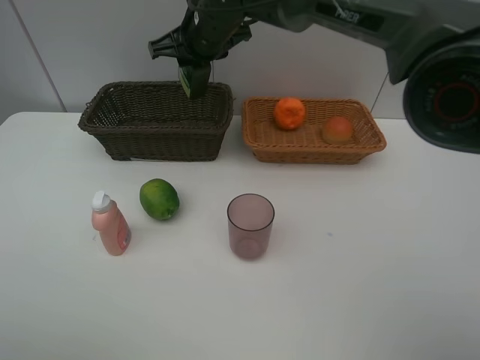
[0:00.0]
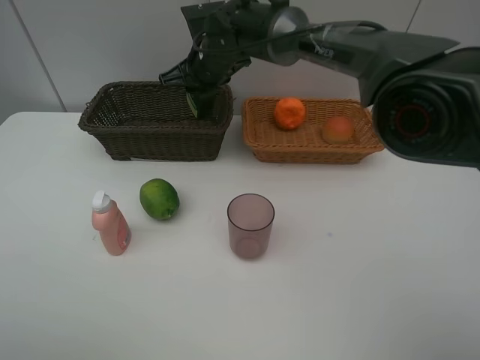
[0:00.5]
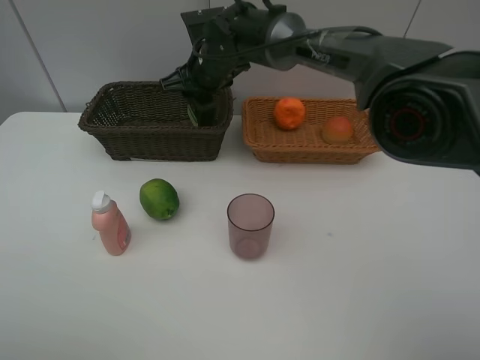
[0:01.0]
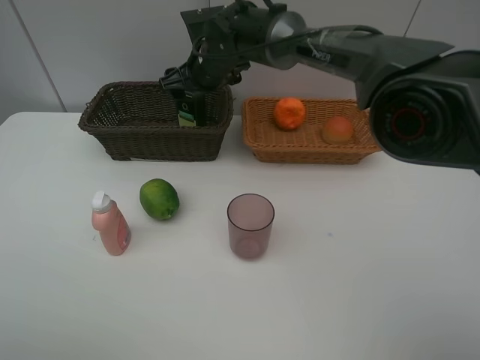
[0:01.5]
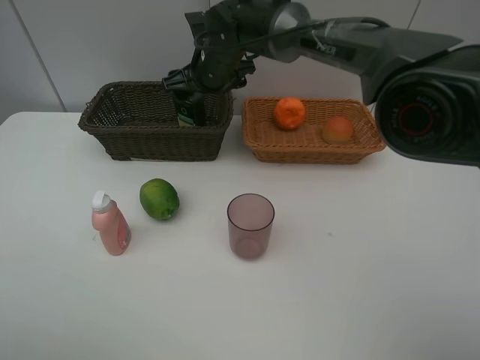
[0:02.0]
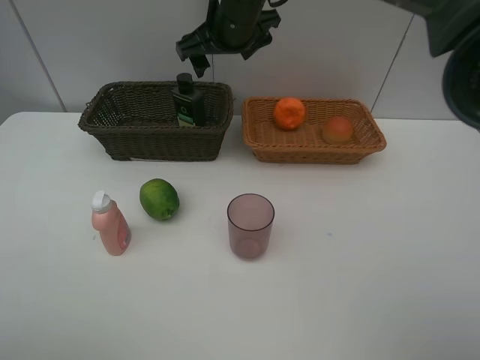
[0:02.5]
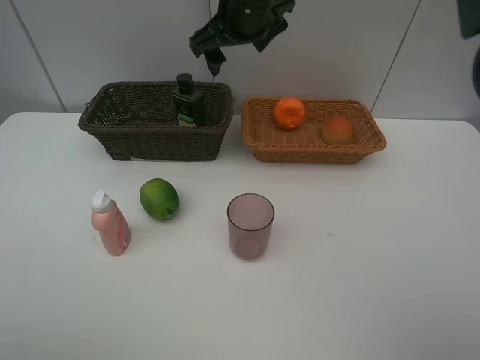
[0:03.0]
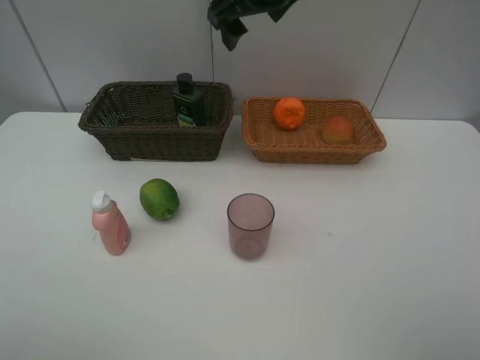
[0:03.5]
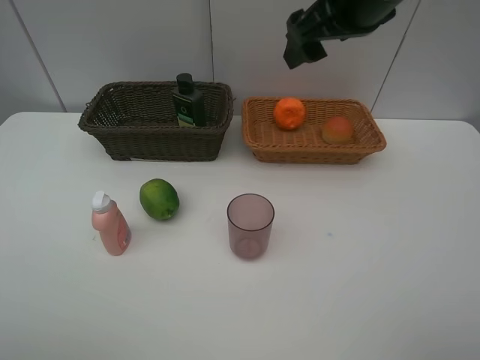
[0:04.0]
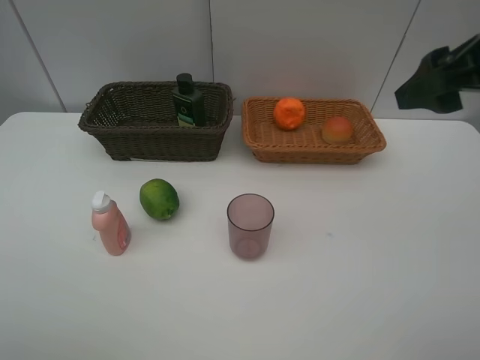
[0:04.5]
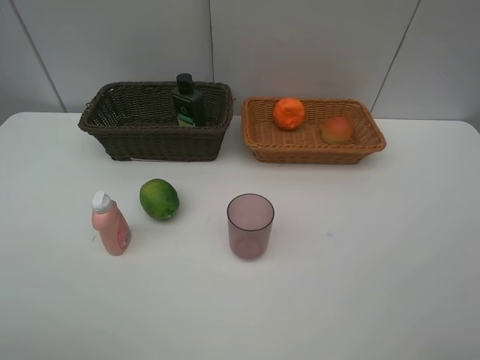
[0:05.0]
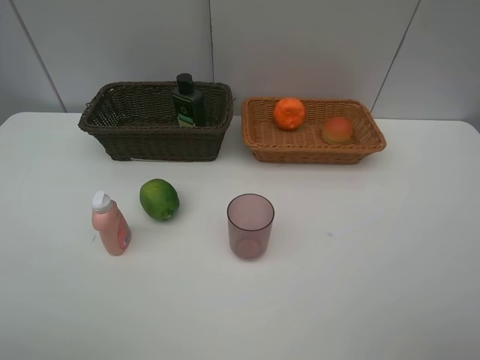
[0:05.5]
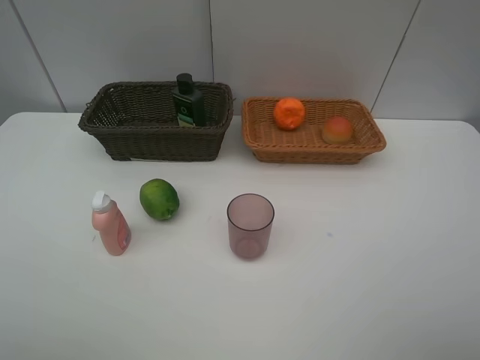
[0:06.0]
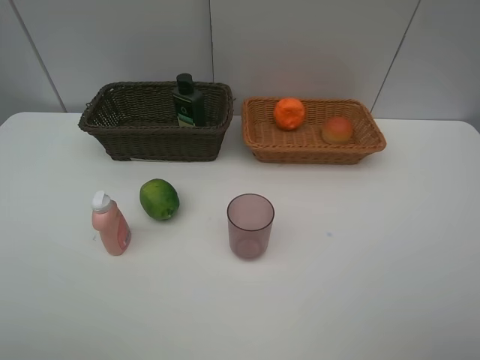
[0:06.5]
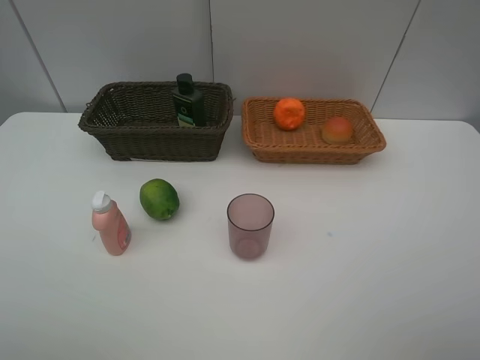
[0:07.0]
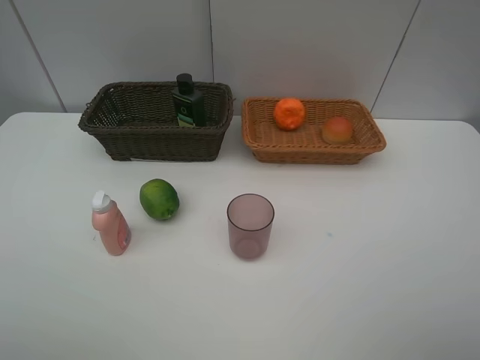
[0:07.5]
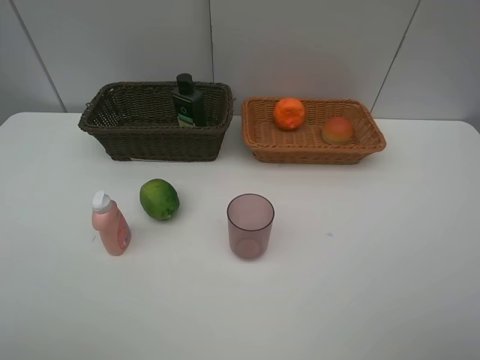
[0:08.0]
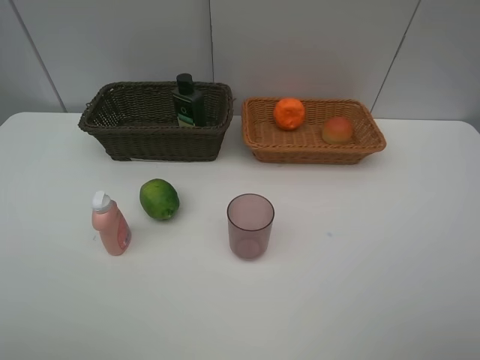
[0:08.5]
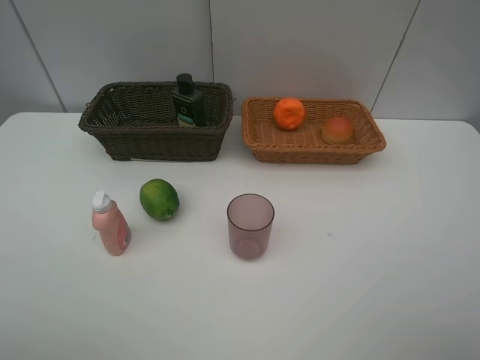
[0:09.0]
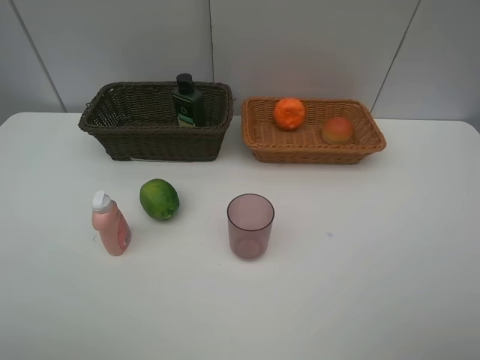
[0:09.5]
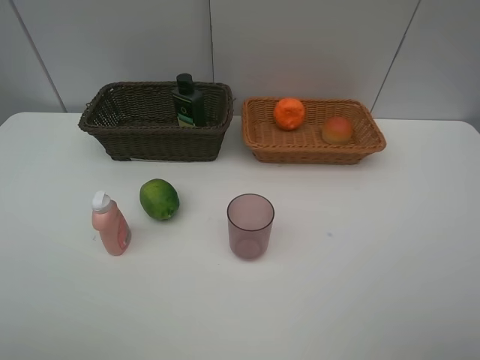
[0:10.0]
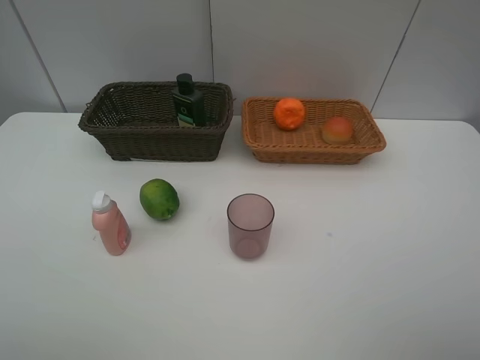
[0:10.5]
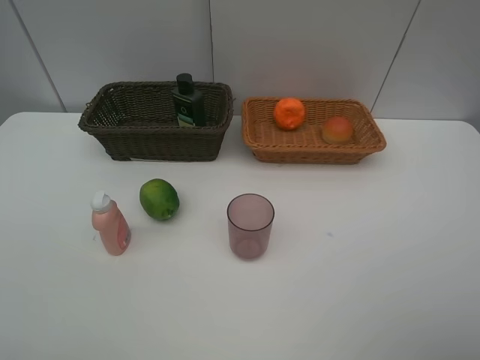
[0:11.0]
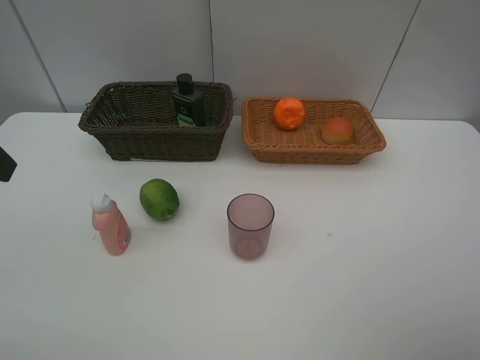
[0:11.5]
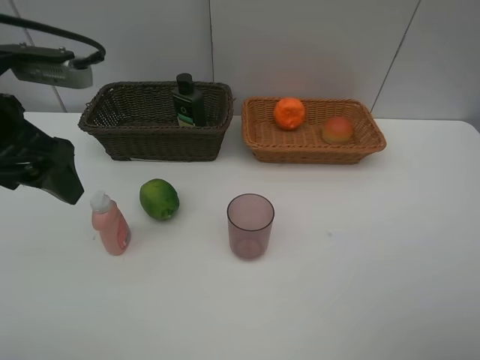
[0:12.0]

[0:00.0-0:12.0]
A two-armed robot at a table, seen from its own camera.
Task of the whole recording: place multiple objects separately in different baskets.
0:00.0 to 0:02.0: The right gripper opens up.
0:02.0 to 0:04.0: The right gripper shifts about 25 cm to the right, backward and upward.
0:04.0 to 0:06.0: The right gripper is displaced backward and to the right by about 35 cm.
0:06.0 to 0:10.0: Both grippers stay about where they are.
0:10.0 to 0:12.0: The left gripper moves forward and to the right, some 25 cm.

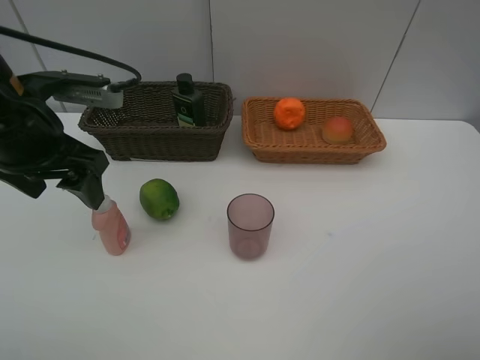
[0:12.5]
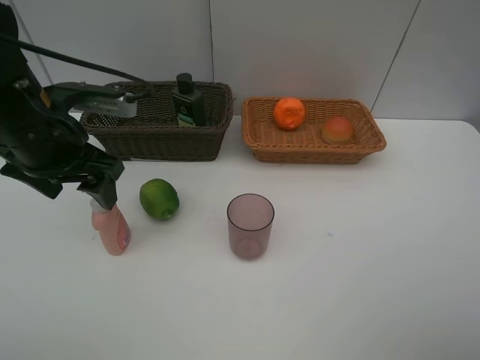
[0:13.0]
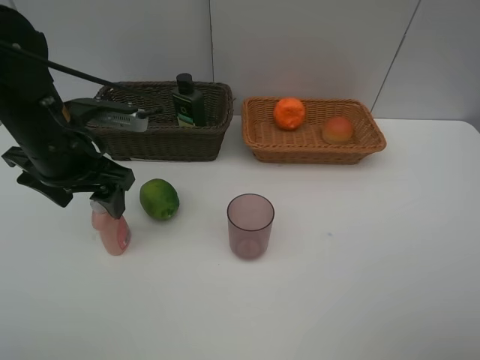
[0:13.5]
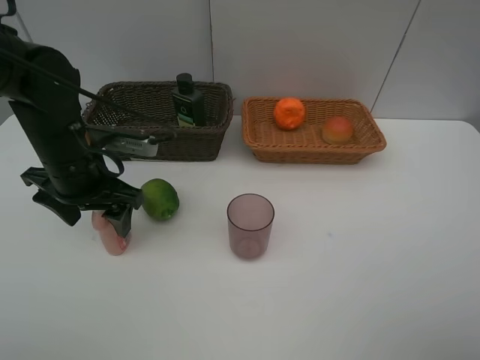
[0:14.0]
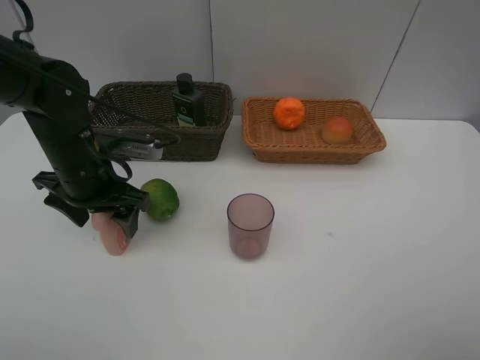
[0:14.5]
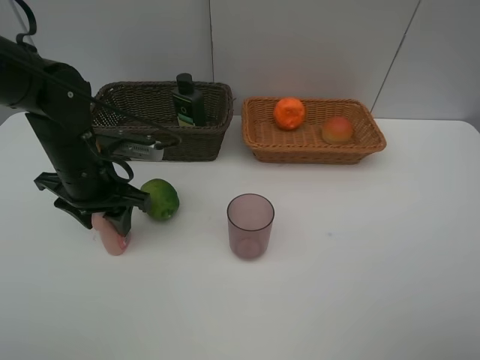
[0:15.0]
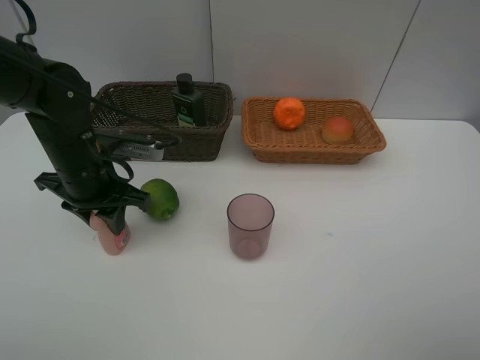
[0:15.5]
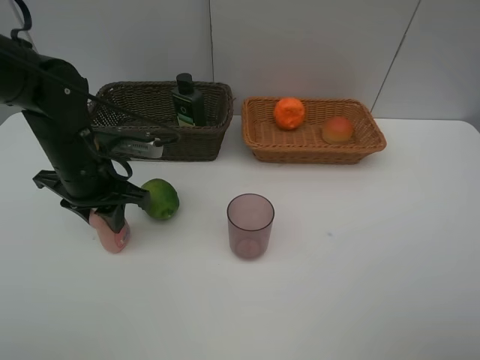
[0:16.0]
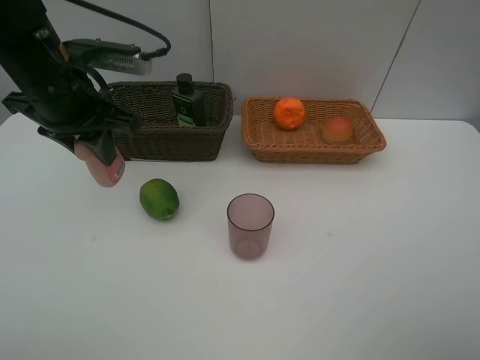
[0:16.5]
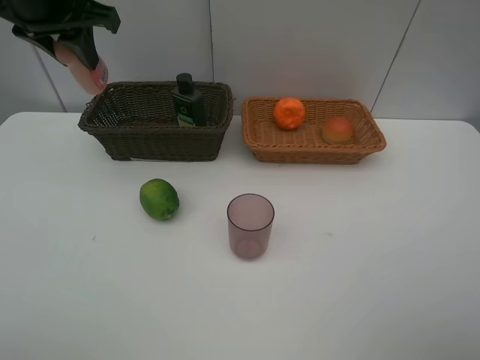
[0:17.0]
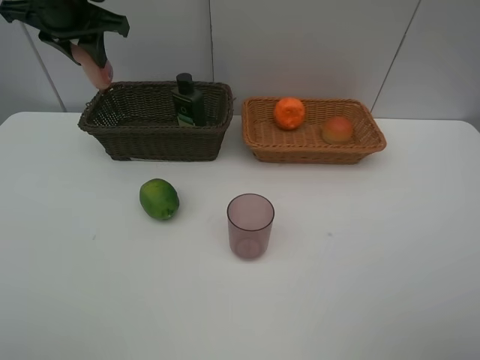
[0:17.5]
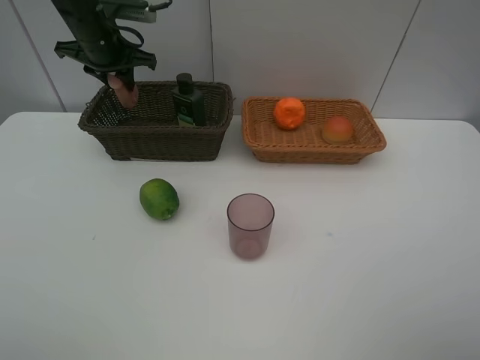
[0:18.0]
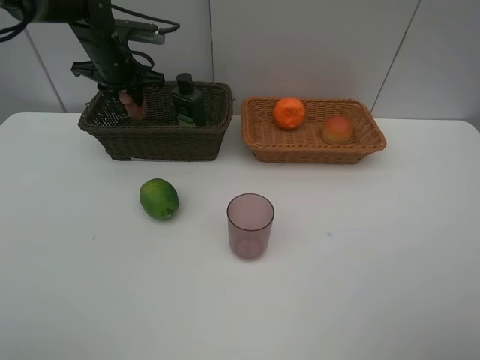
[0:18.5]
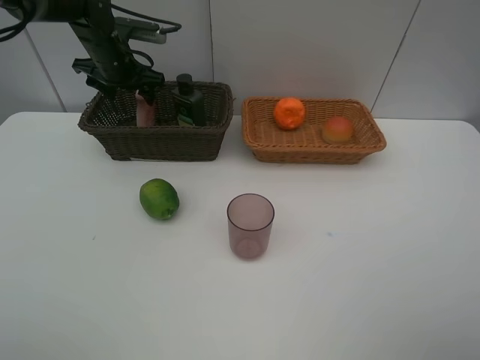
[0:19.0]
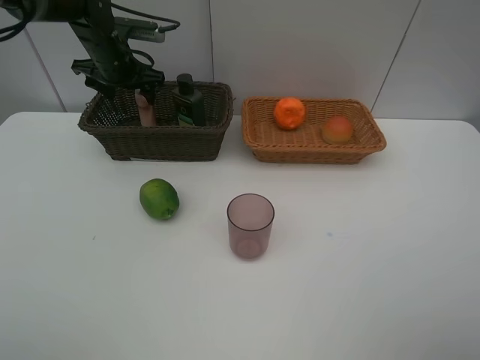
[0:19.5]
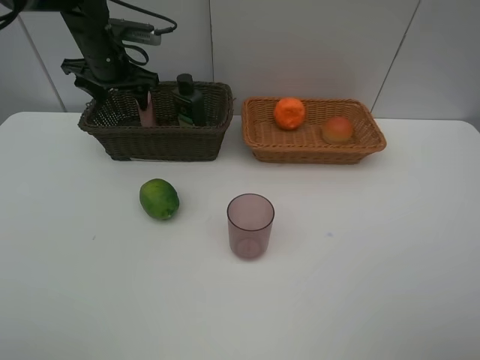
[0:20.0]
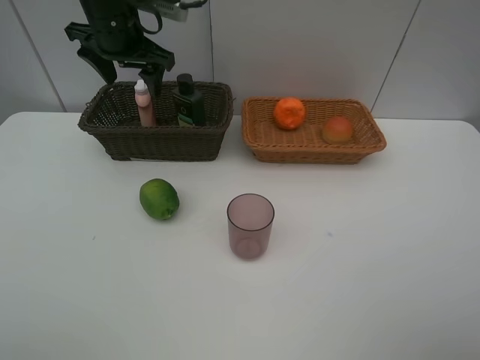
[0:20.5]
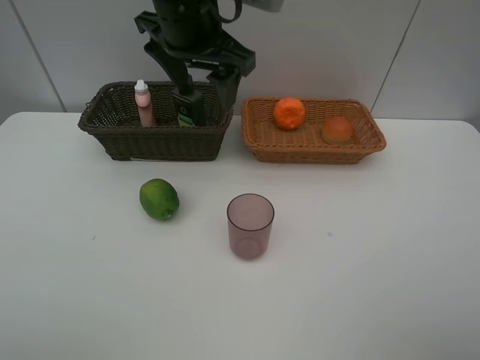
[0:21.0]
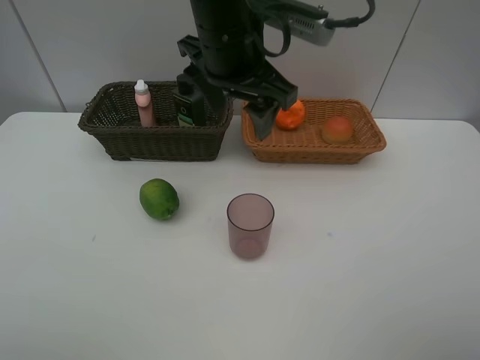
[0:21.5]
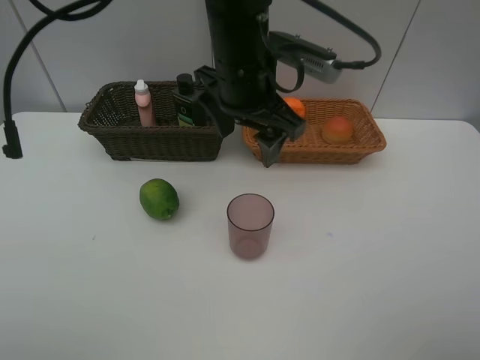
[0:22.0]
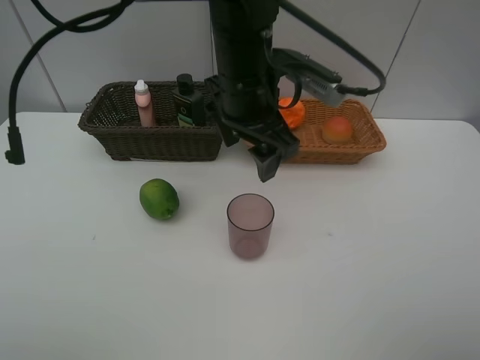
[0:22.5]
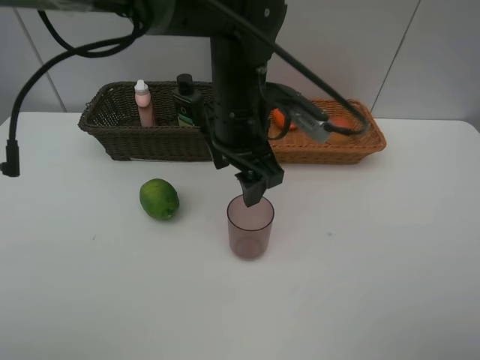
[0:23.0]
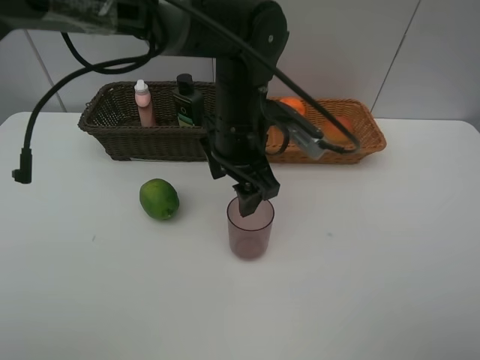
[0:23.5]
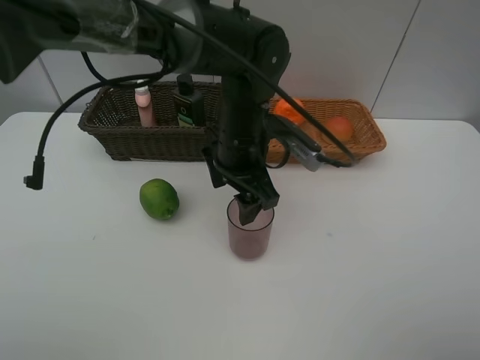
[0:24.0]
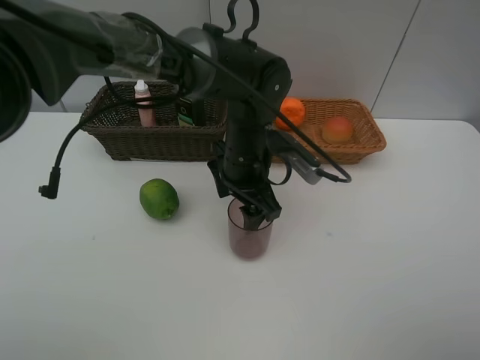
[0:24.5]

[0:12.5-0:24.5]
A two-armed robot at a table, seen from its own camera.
Task of the whole recording: place multiple objects separately in different baskets.
0:12.5 to 0:14.5: The left gripper shifts about 10 cm downward.
0:14.5 to 0:16.5: The left gripper heads upward, covering about 10 cm, and closes its fingers.
0:16.5 to 0:18.5: The left gripper travels forward by about 20 cm.
0:18.5 to 0:20.5: The left gripper travels upward, backward and to the right by approximately 15 cm, and opens up.
0:20.5 to 0:22.5: The left gripper moves to the right and backward, about 20 cm.
0:22.5 to 0:24.5: The left gripper moves downward, about 10 cm.

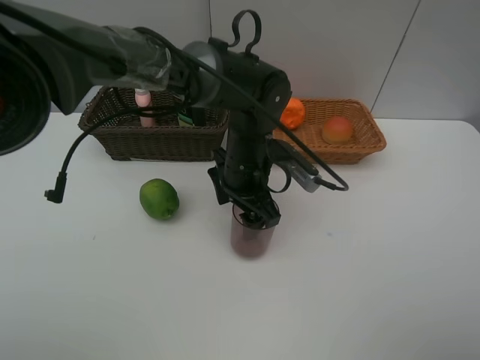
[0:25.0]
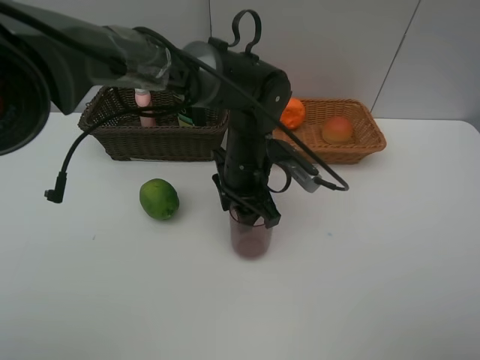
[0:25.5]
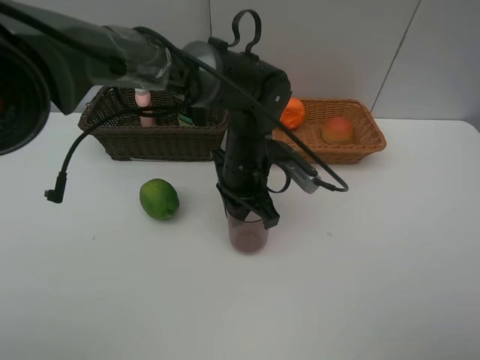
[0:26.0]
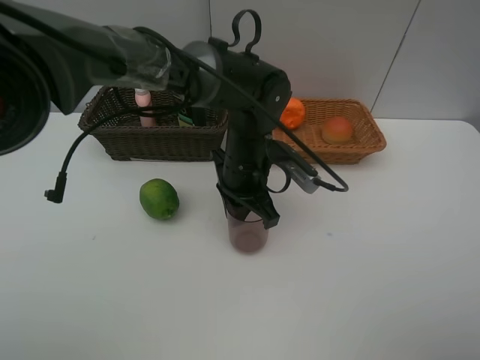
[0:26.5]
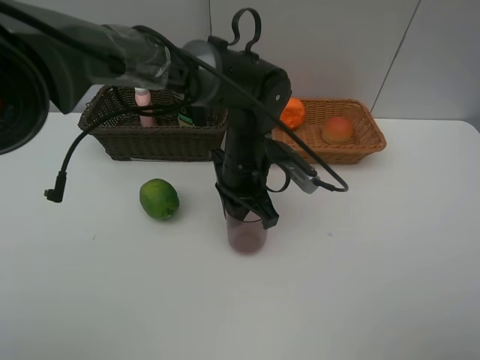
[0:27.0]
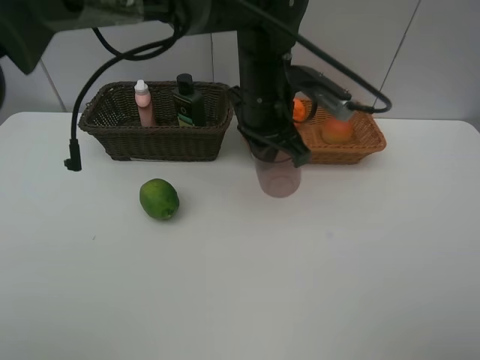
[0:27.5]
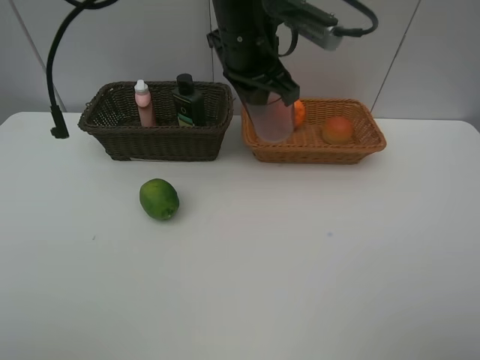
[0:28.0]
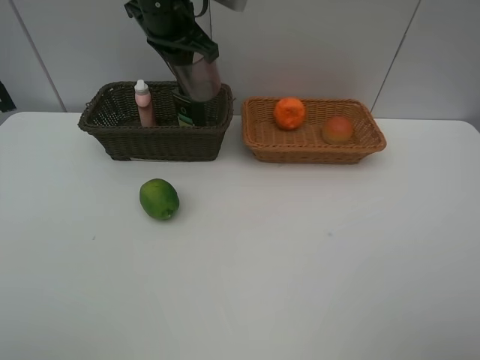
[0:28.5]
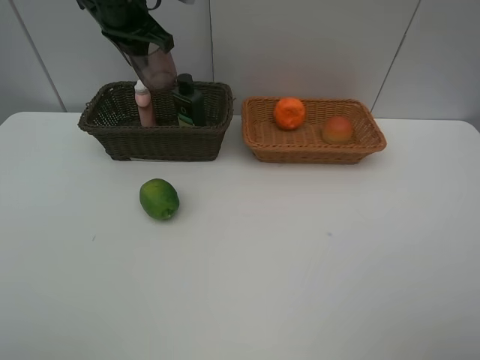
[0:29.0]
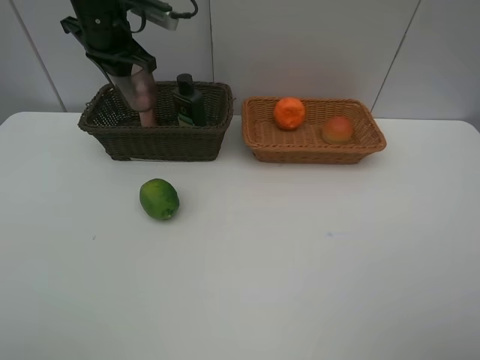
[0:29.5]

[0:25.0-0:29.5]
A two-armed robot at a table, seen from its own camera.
Task of the whole recording: place multiple objects separately in different baskets.
0:25.0 to 0:27.0: The left gripper closes up.
0:27.0 to 0:29.5: The left gripper heads to the left, forward and upward, covering approximately 30 cm.
